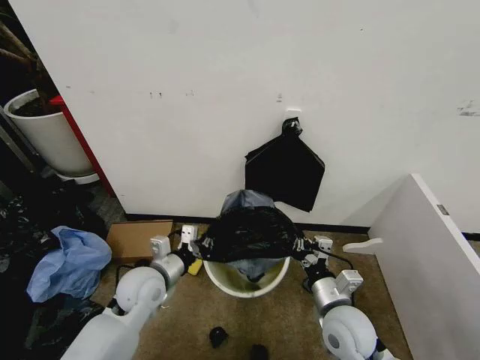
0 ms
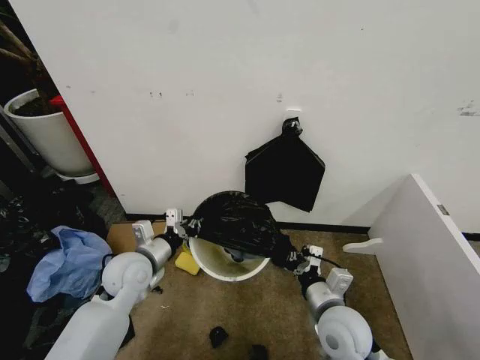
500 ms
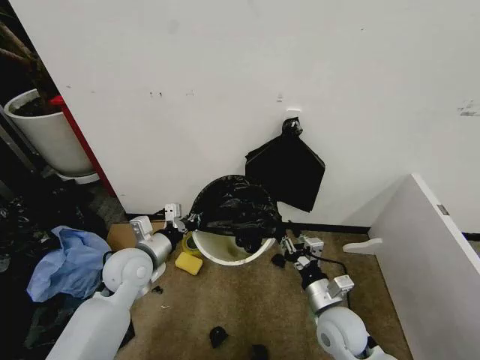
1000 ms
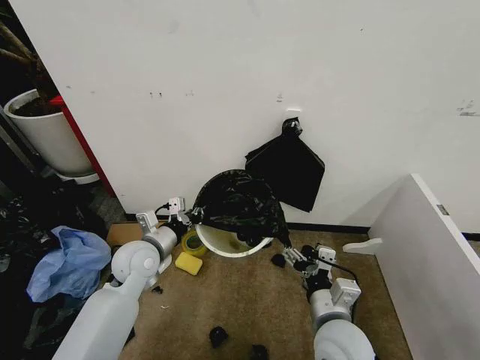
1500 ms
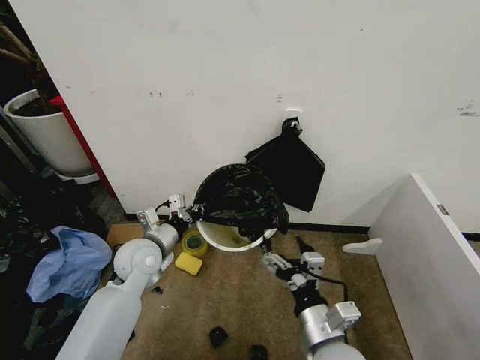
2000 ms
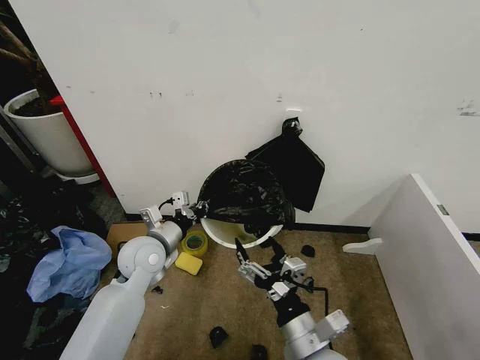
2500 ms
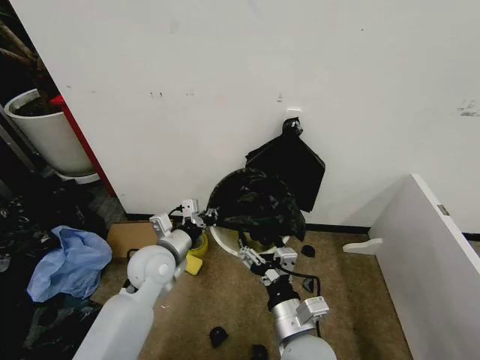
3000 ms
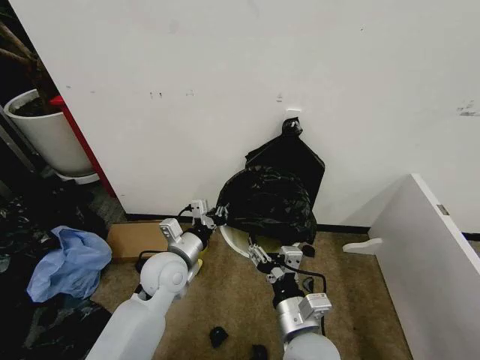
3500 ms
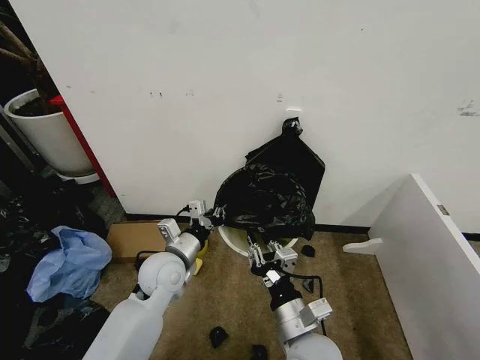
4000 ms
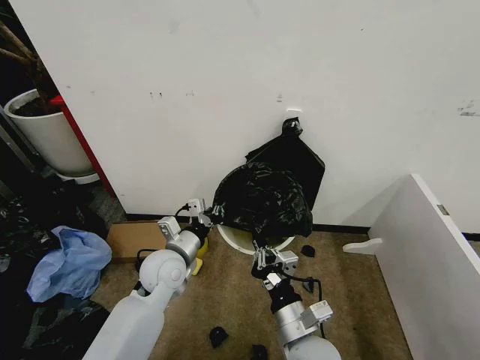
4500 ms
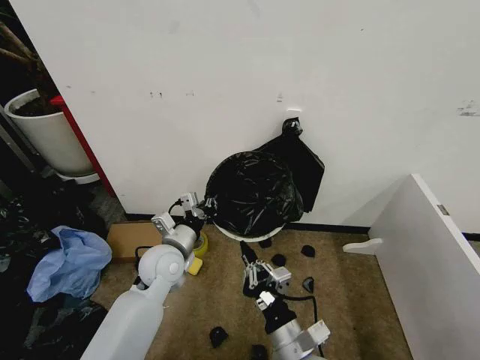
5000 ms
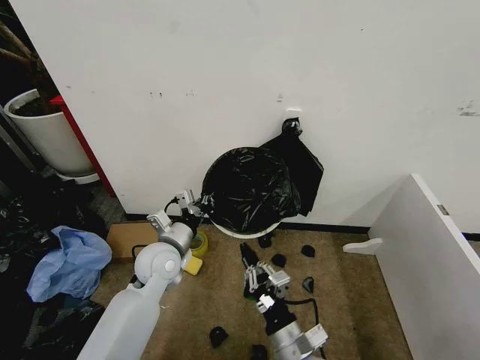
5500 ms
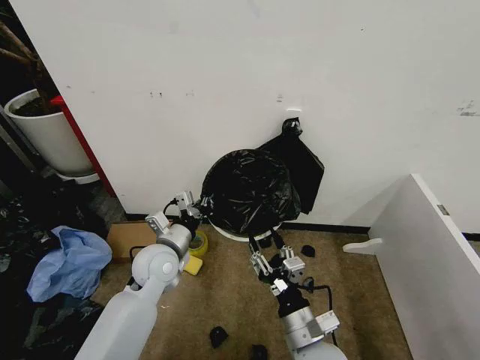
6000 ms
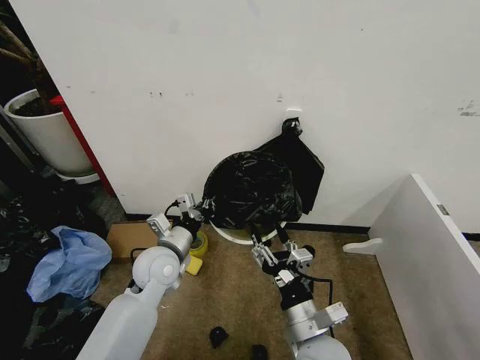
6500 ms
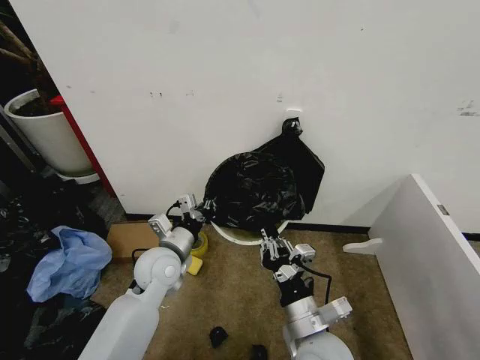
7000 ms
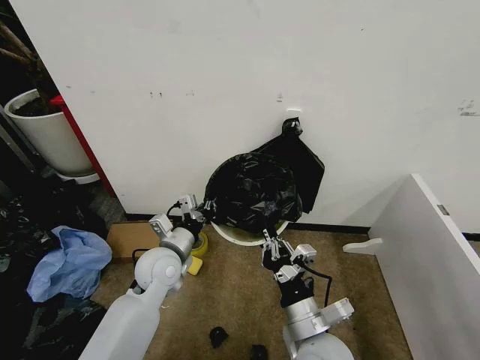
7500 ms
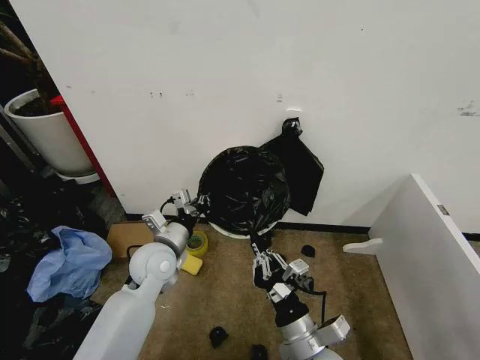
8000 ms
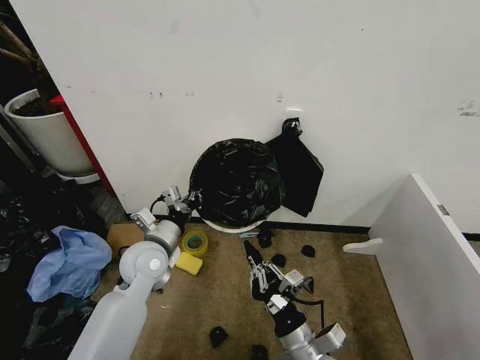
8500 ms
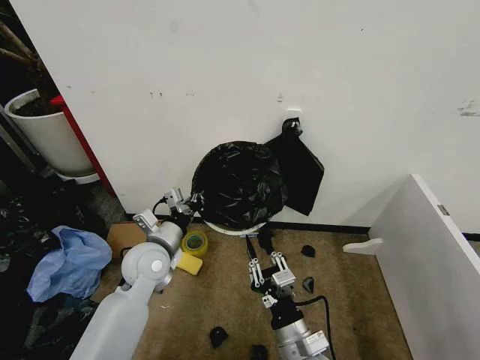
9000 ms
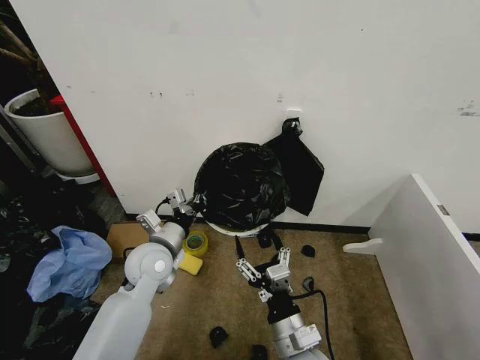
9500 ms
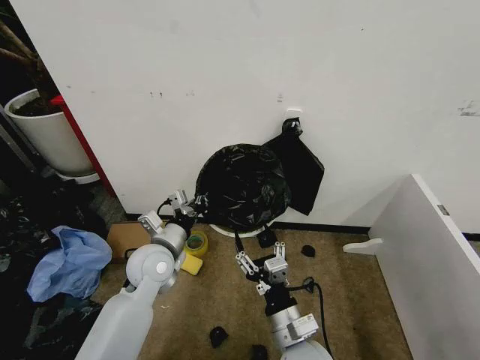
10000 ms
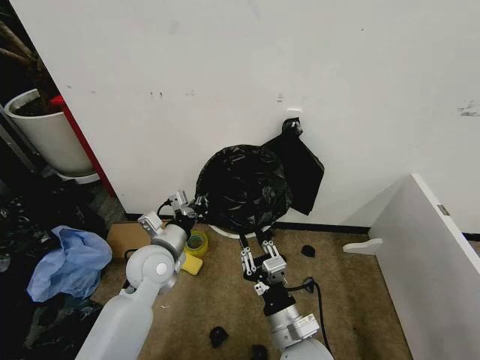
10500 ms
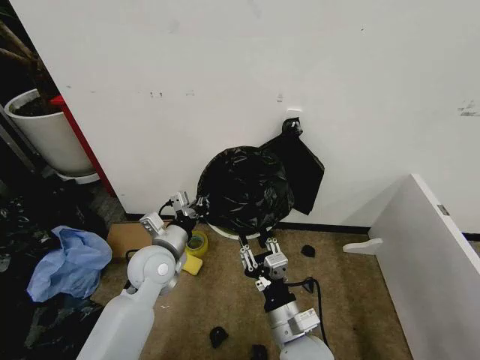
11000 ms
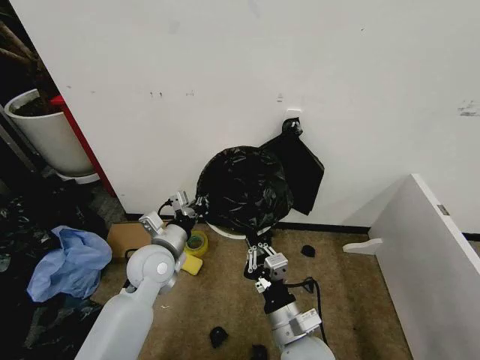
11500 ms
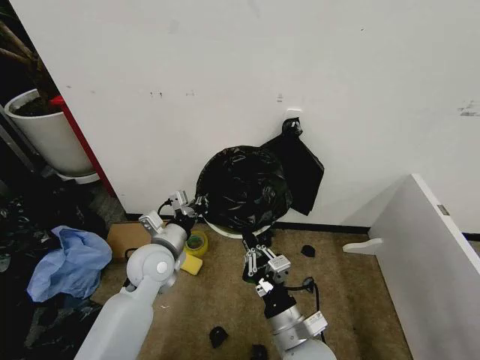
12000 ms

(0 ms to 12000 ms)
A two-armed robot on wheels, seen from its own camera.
Task of the whole recording: Place the garbage bag over the trash bin.
0 ms - 2000 ms: The right gripper travels backward and to the left by approximately 10 cm, and opens its fingers. Meanwhile the left gripper goes about 5 cm forward.
2000 ms - 4000 ms: The right gripper closes. Meanwhile the left gripper goes about 5 cm to the right.
4000 ms - 6000 ms: The right gripper opens its fingers.
6000 ms - 8000 ms: The right gripper closes up.
8000 ms - 10000 ms: The right gripper opens.
10000 ms - 12000 ms: The right gripper closes its fingers.

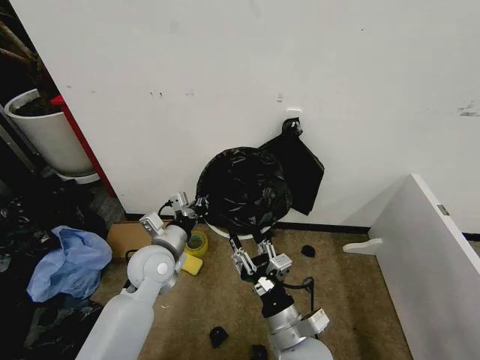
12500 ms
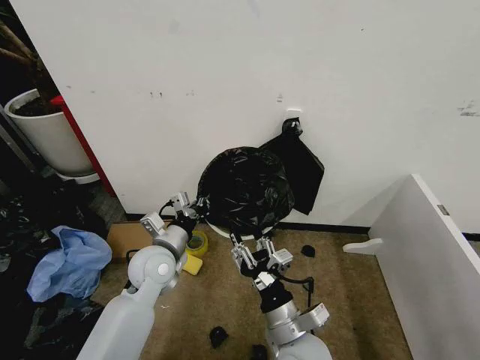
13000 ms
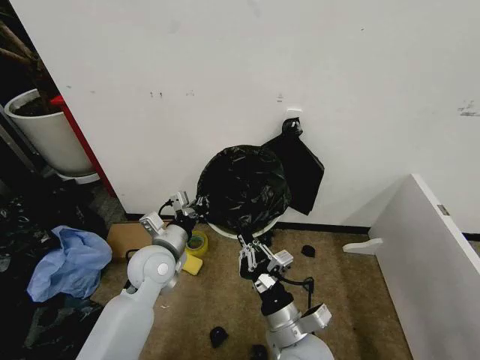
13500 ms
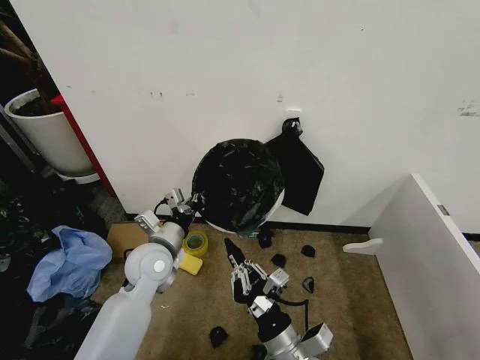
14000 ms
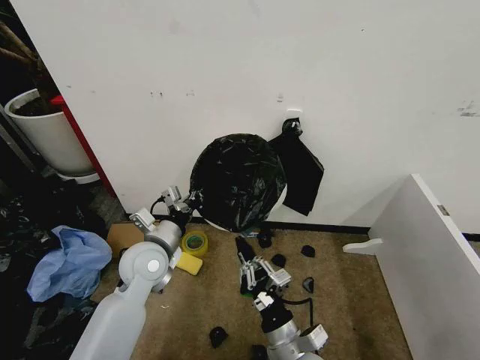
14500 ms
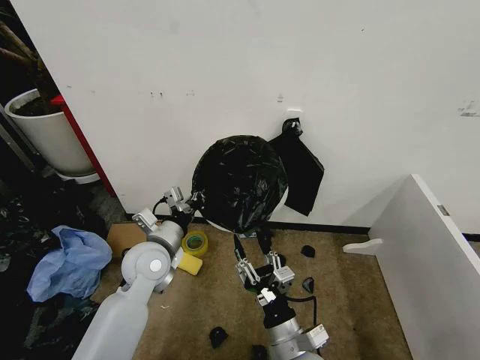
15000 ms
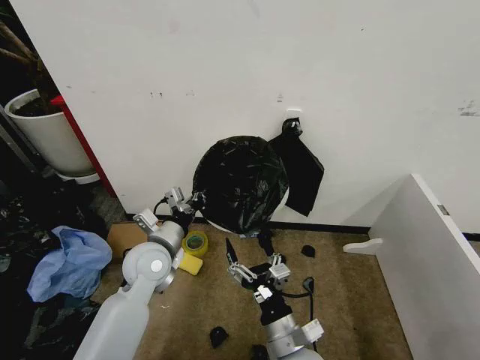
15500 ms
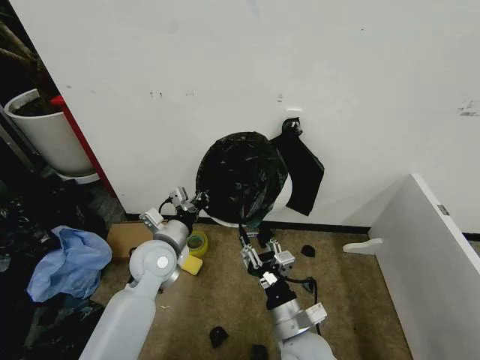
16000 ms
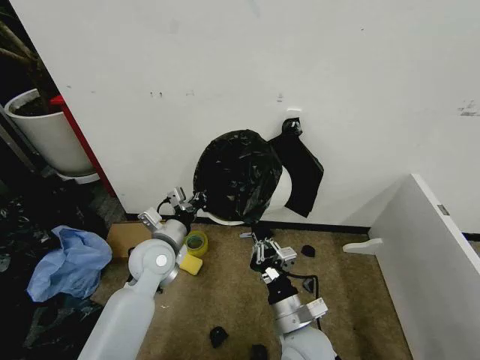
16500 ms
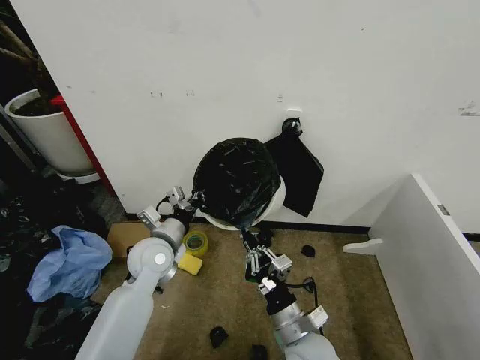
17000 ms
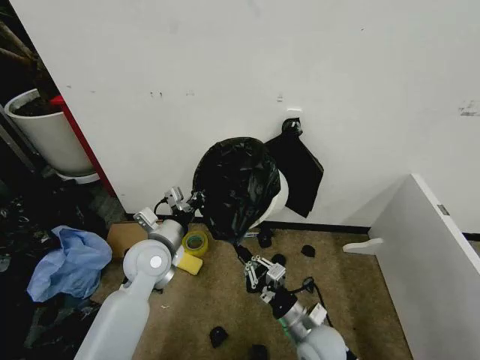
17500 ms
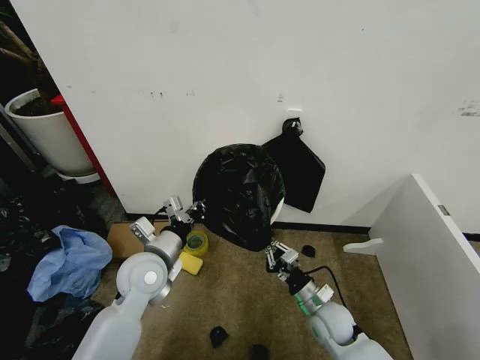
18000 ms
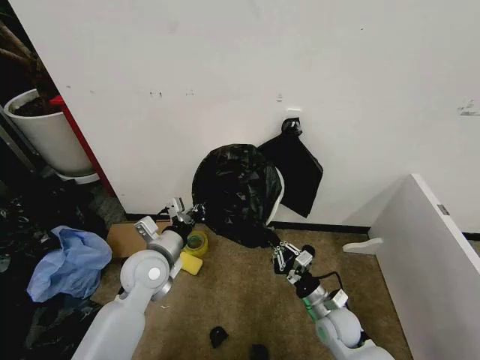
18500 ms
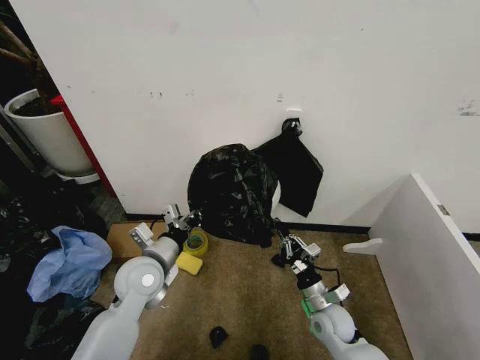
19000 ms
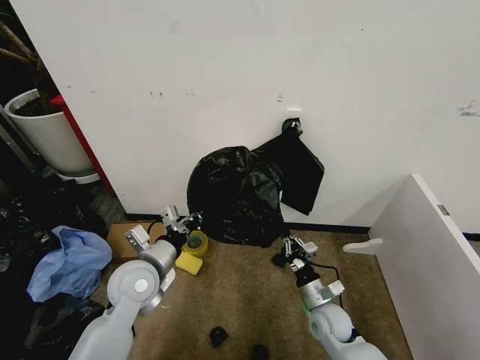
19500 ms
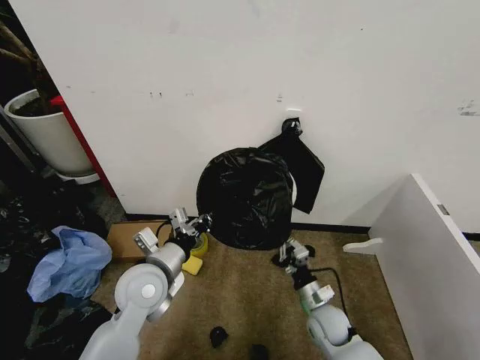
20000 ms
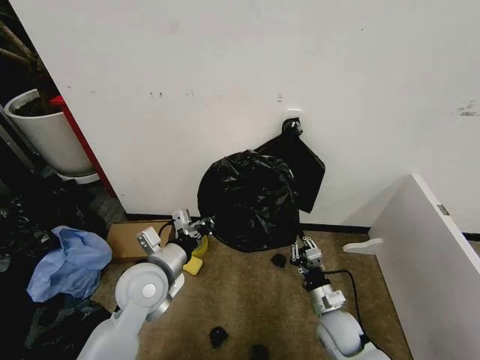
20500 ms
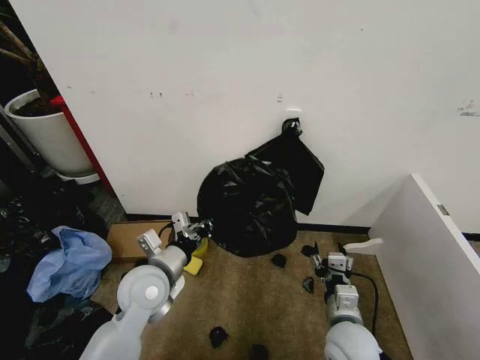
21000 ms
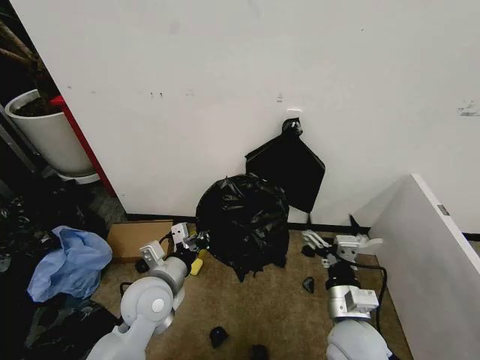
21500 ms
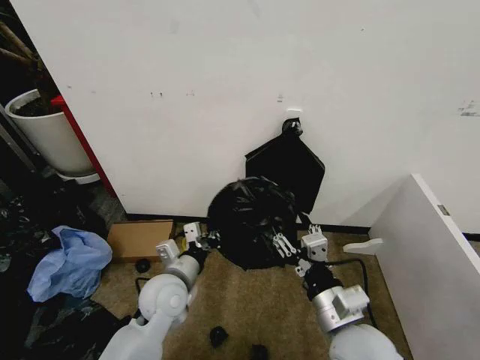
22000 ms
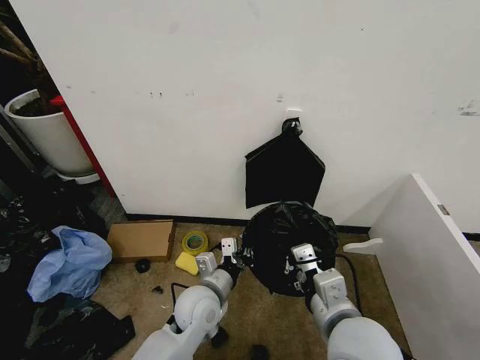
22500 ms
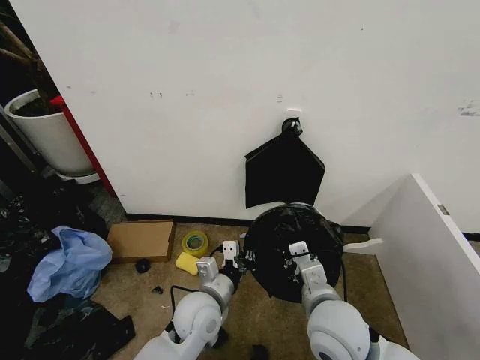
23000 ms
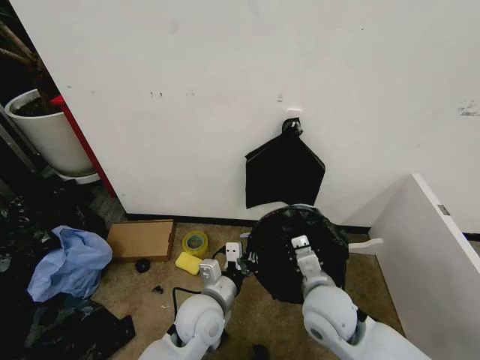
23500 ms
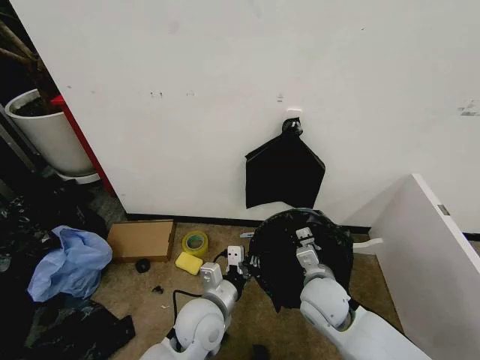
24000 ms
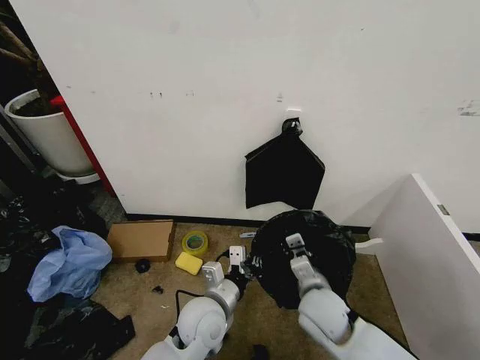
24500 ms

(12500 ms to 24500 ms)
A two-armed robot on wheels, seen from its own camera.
Task of the whole recording: Place the garbage bag over the trash bin.
12500 ms - 14500 ms: The right gripper closes its fingers.
14500 ms - 16500 ms: The right gripper opens, then closes once more.
16500 ms - 18500 ms: The right gripper shifts about 15 cm to the right, downward and forward.
20500 ms - 22500 ms: The right gripper moves upward, roughly 25 cm, and opens, then closes once more. The left gripper goes some 15 cm to the right and downward.
22500 ms - 24500 ms: The right gripper heads downward and forward, covering roughly 15 cm.

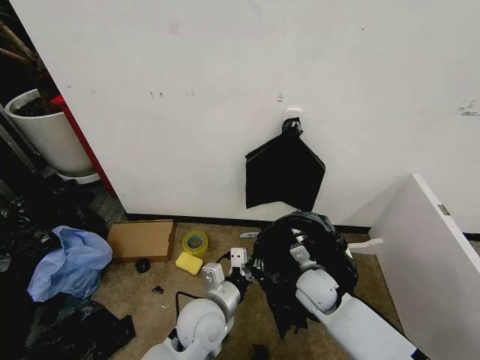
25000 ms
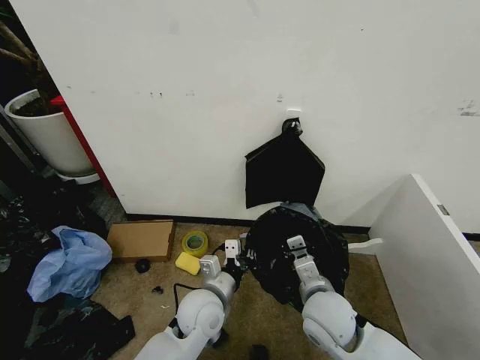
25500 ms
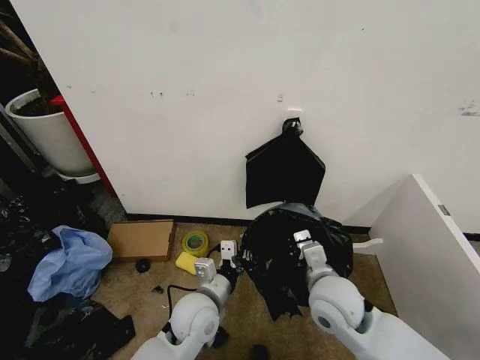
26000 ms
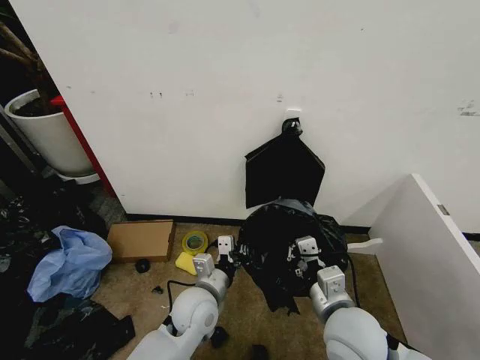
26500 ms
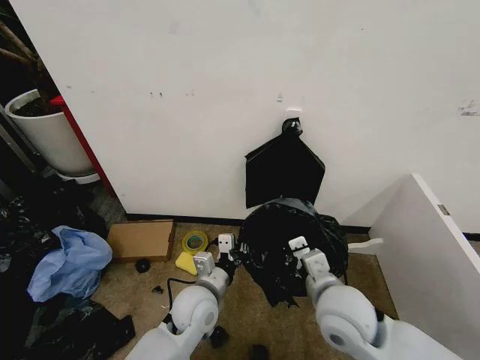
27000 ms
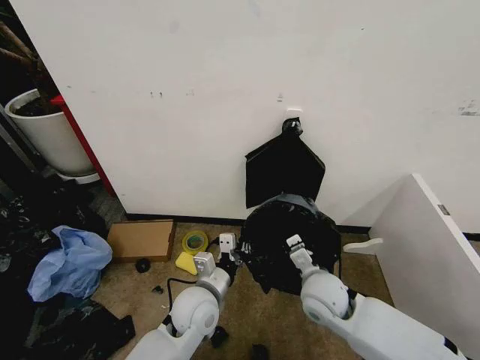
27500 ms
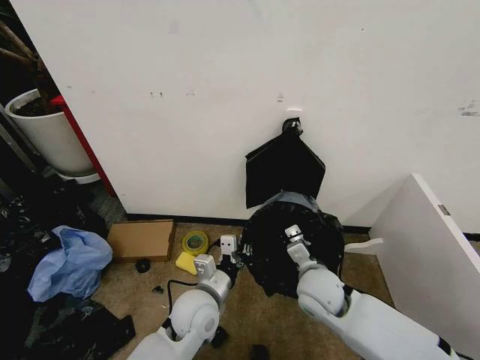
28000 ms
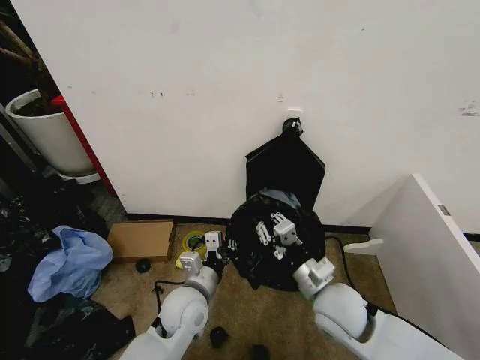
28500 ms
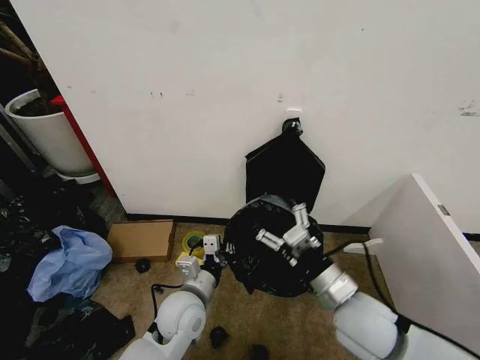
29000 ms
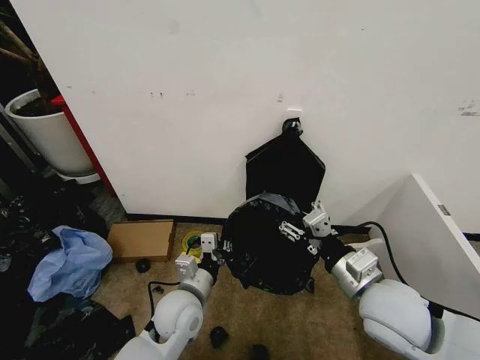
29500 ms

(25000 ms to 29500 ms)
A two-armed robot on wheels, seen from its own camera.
Task of the whole recording: Place the garbage bag over the trash bin.
25000 ms - 27000 ms: The right gripper goes some 15 cm upward and backward.
27000 ms - 29500 ms: The right gripper goes about 5 cm to the right, and opens.
